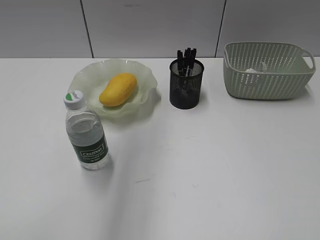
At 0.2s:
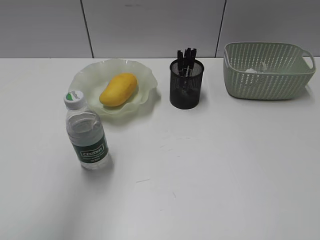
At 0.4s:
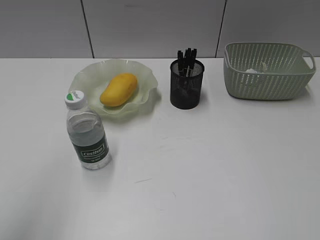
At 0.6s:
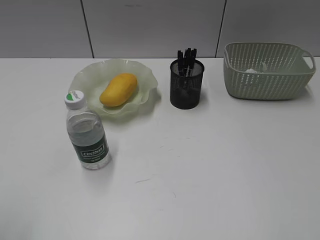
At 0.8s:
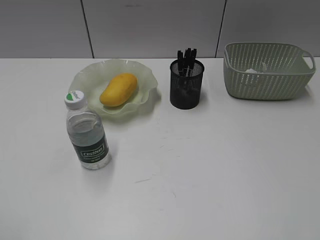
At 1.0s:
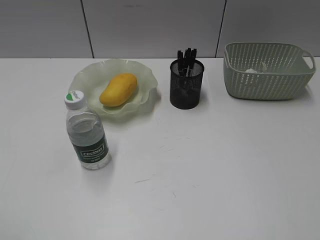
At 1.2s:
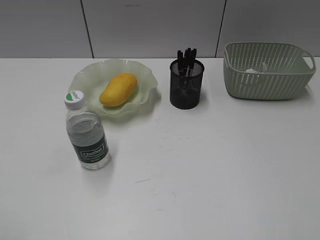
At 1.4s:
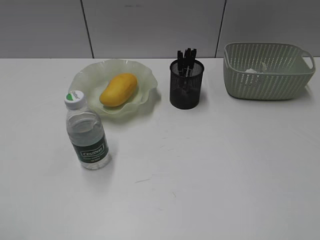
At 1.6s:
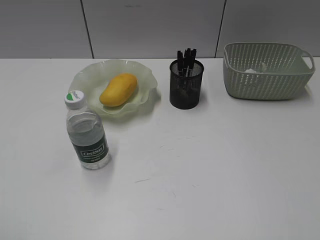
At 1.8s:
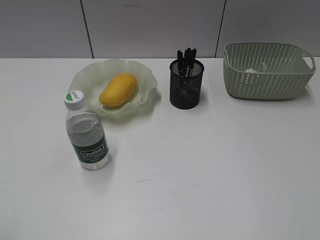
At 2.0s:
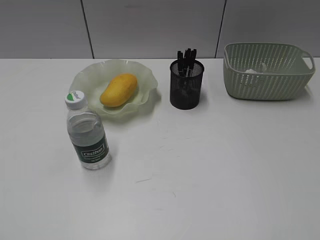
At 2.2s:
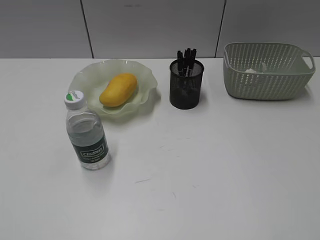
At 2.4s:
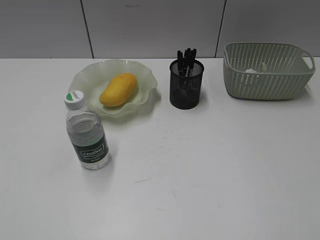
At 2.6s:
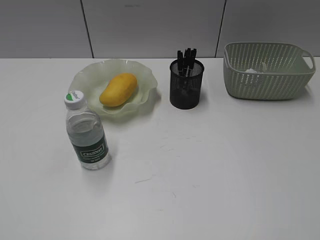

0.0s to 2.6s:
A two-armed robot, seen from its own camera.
0.0s to 1.2s: The left gripper heads backward, to the left and downward, covering some 35 cm. Meanwhile the right gripper opens.

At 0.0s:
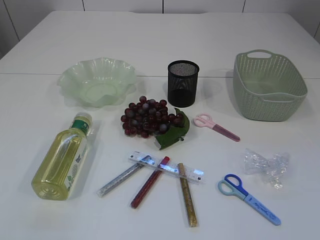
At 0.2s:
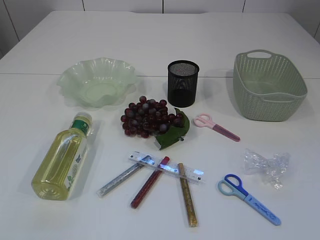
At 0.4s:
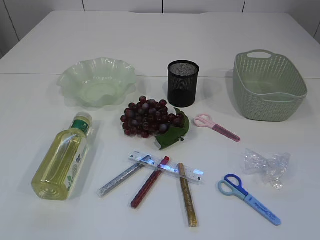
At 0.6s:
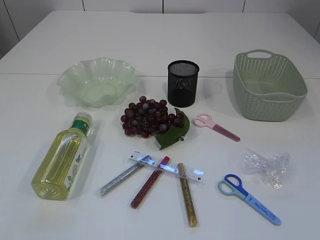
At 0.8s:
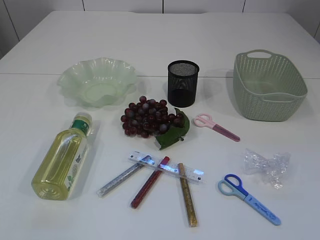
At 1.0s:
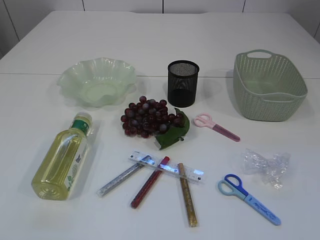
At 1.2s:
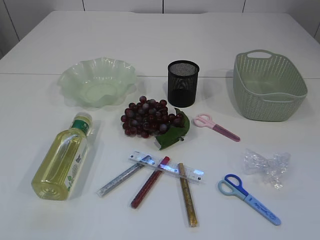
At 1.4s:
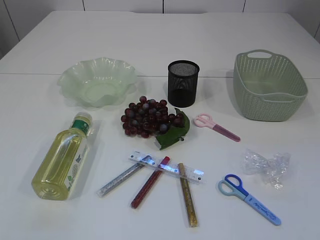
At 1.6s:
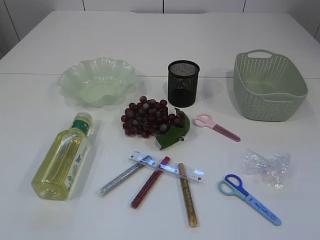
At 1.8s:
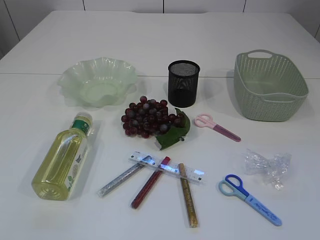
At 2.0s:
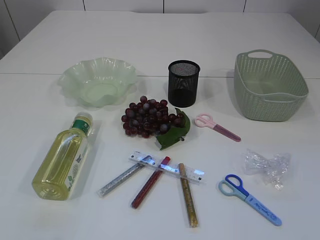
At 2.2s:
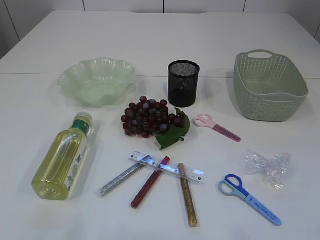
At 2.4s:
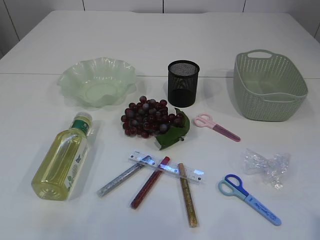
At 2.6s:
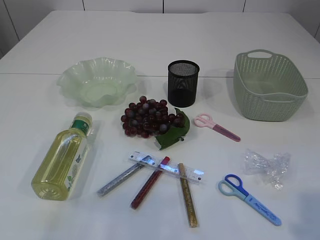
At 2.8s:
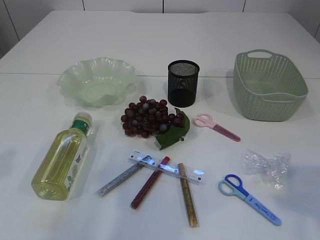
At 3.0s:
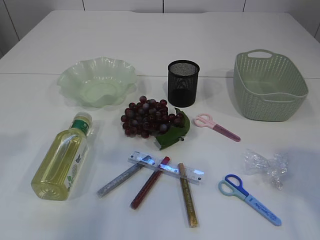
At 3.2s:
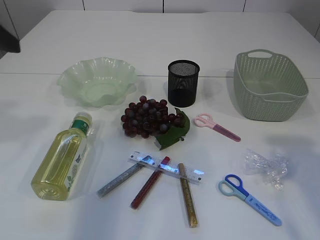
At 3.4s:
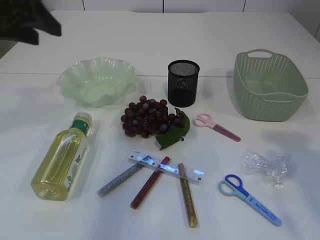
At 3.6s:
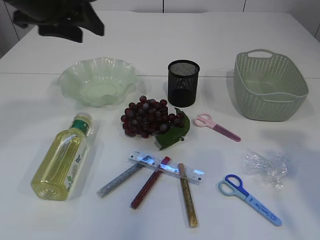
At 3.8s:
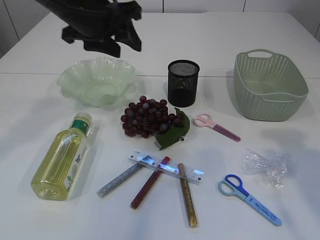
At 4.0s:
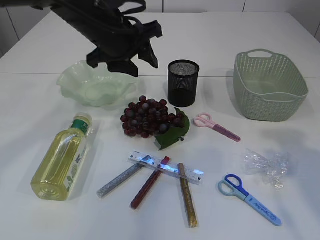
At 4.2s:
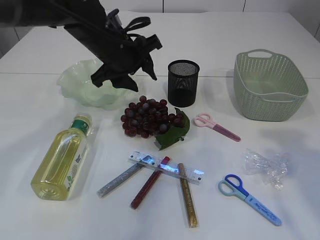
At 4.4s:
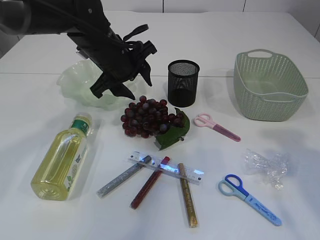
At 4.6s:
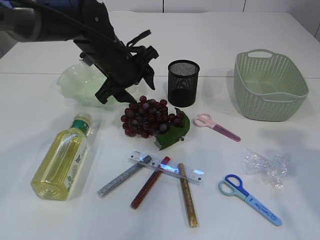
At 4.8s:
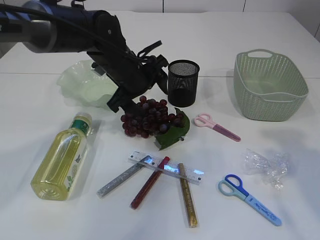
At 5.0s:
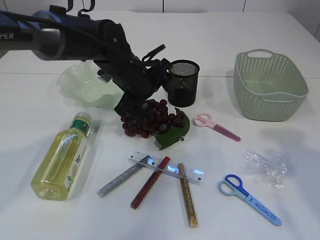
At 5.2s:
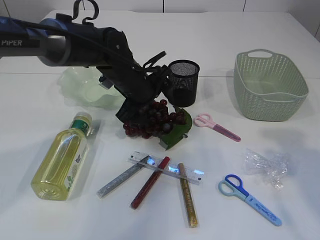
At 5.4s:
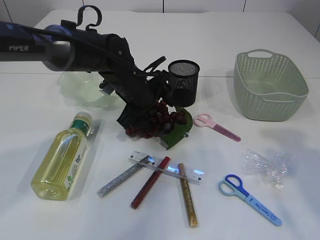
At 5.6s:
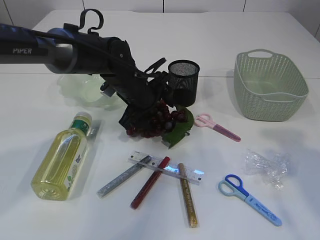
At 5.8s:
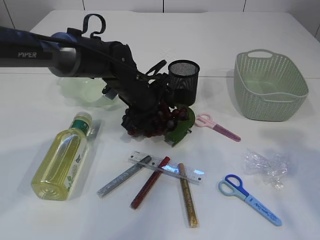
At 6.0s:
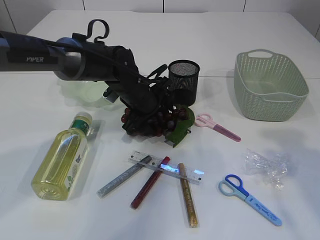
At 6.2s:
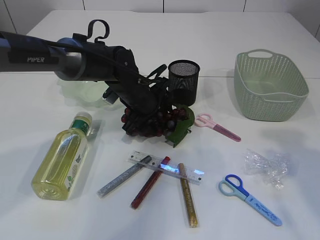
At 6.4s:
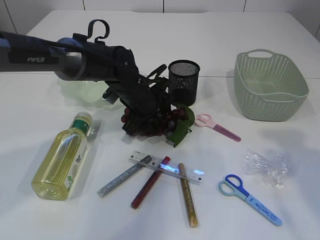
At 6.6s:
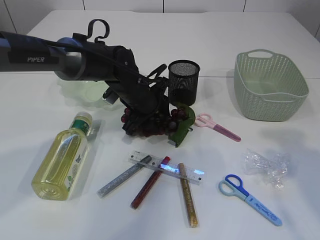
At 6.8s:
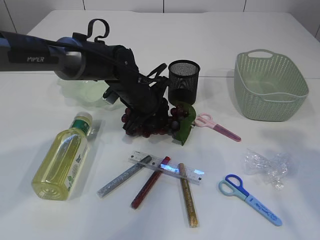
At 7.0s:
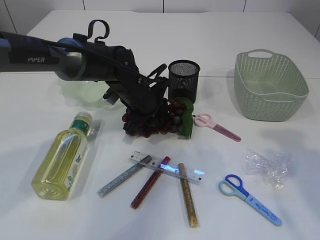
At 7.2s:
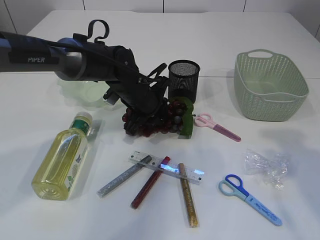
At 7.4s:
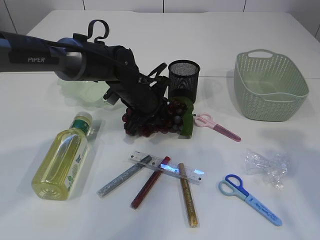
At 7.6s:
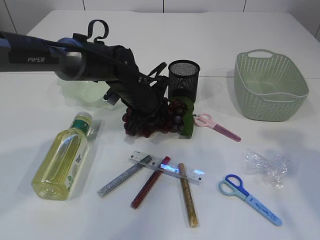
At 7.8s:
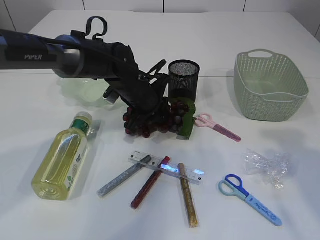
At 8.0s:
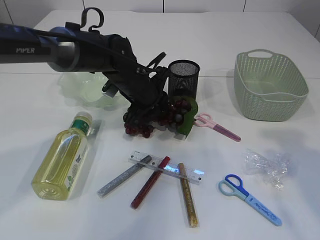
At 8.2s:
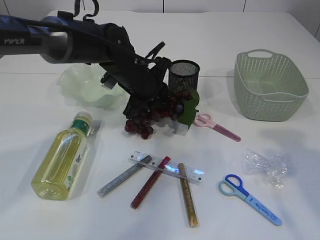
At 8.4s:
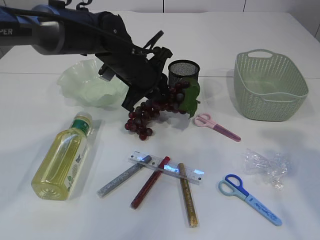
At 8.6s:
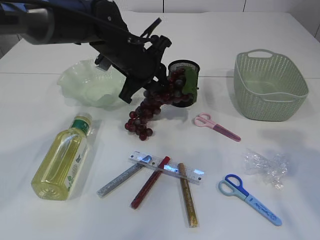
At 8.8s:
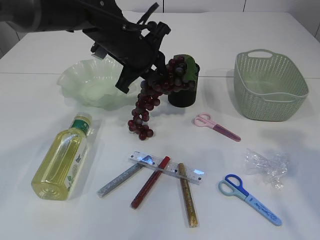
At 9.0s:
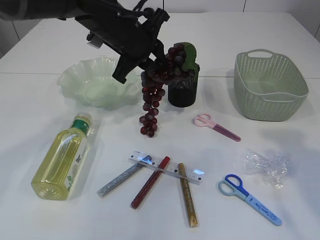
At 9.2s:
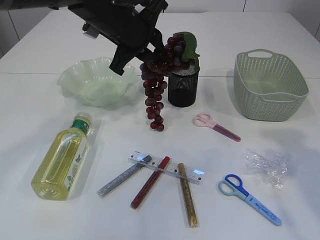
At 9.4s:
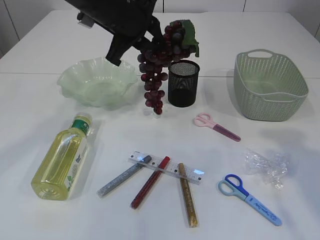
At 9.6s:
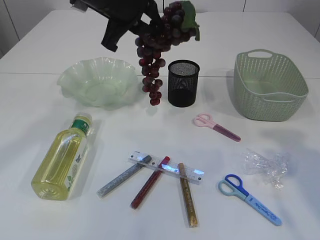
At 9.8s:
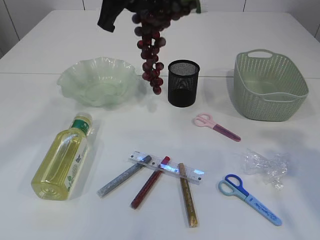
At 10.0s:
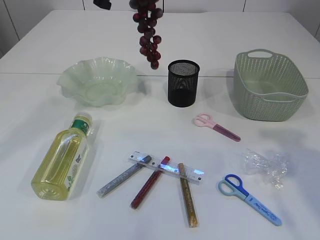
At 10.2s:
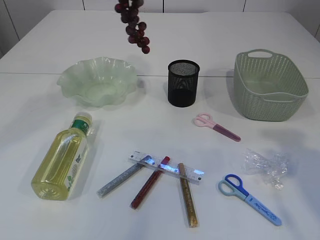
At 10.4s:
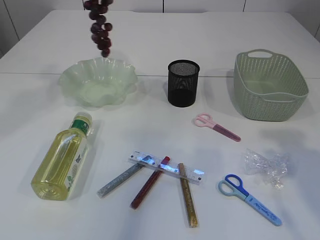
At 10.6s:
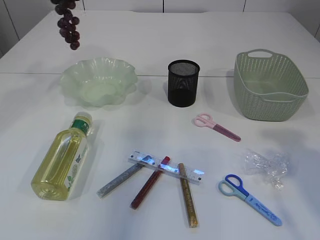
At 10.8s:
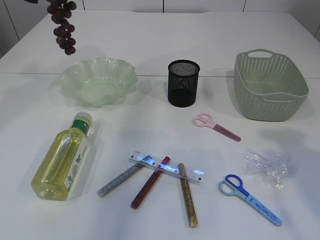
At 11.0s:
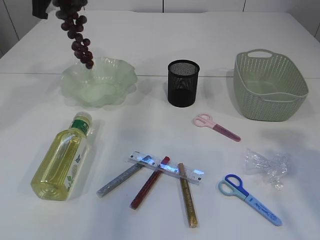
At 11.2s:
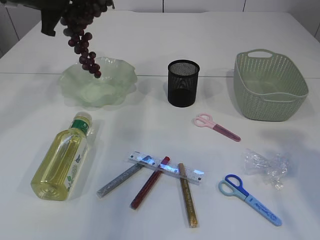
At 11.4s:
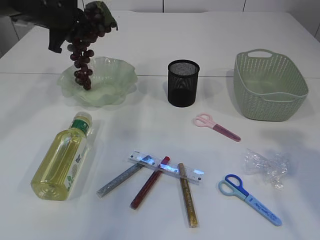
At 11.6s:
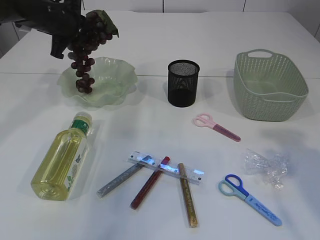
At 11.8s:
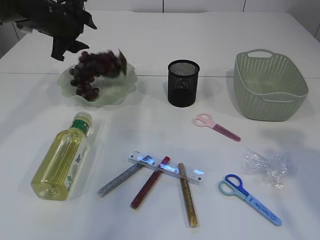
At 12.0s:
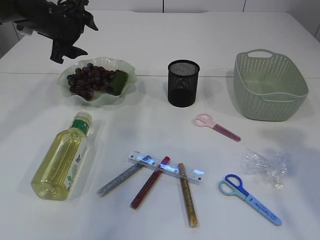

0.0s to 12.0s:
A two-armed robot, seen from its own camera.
Step, 0.0s to 9.4s: Pick up the grapes.
1.6s to 3.0s: The right gripper is displaced forward and upward by roughly 15 cm. The left gripper goes roughly 20 cm forward.
3.0s to 4.4s: The right gripper moves forward, roughly 5 cm. Meanwhile the left gripper is displaced to the right, forward and downward by roughly 30 cm.
4.4s to 6.0s: The left gripper goes roughly 10 cm downward, and opens.
6.0s to 7.6s: The left gripper closes up.
7.6s to 9.0s: The left gripper goes roughly 15 cm upward.
9.0s to 10.4s: The left gripper travels upward and to the left by some 15 cm.
10.4s to 12.0s: The left gripper moves downward and forward, approximately 15 cm, and opens up.

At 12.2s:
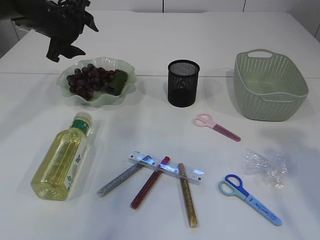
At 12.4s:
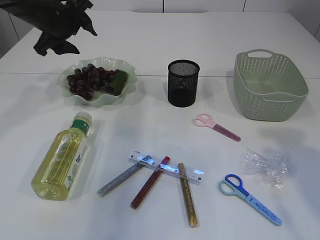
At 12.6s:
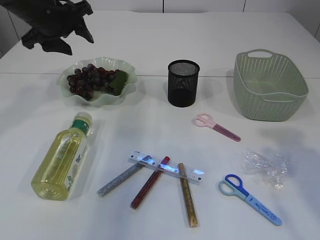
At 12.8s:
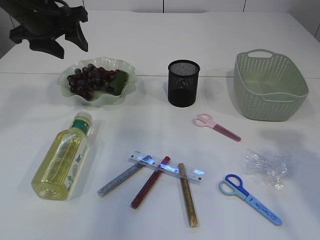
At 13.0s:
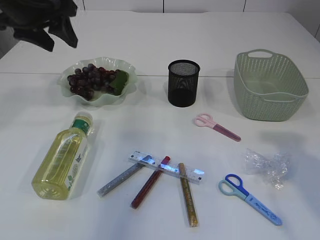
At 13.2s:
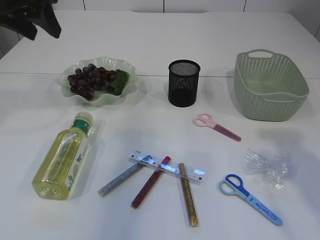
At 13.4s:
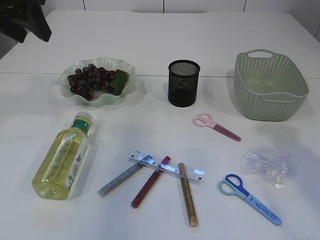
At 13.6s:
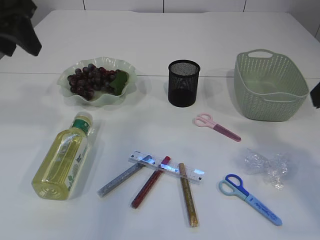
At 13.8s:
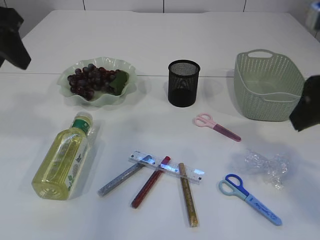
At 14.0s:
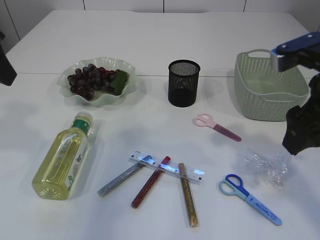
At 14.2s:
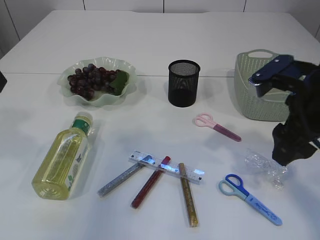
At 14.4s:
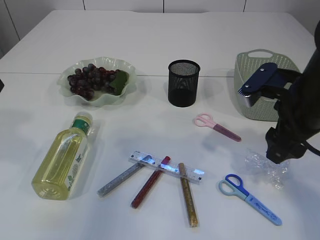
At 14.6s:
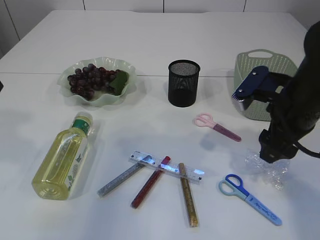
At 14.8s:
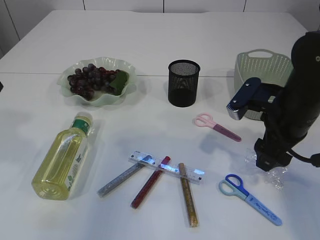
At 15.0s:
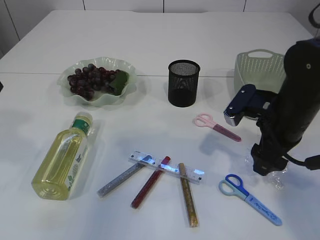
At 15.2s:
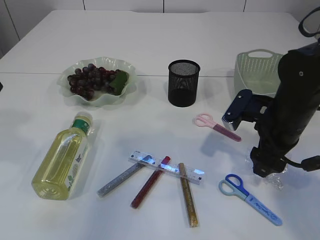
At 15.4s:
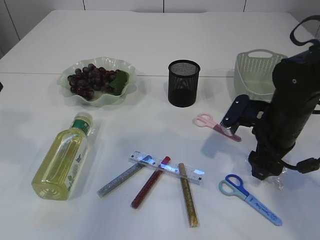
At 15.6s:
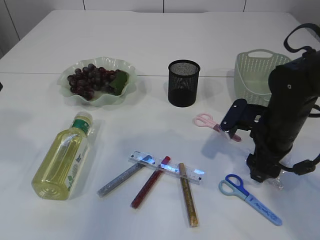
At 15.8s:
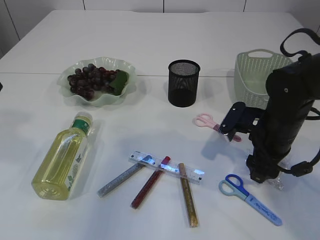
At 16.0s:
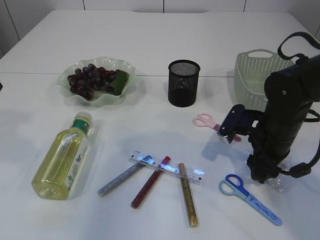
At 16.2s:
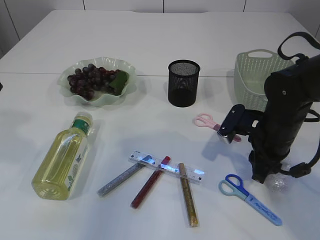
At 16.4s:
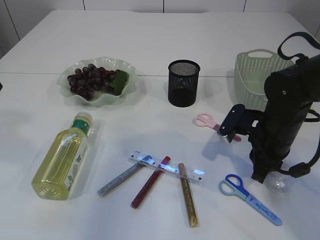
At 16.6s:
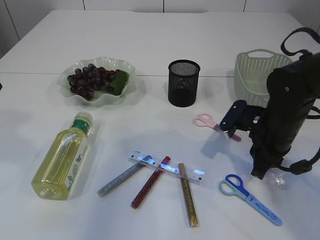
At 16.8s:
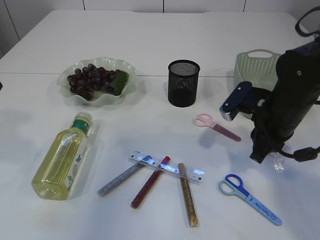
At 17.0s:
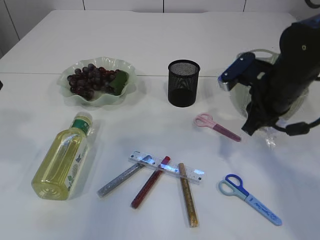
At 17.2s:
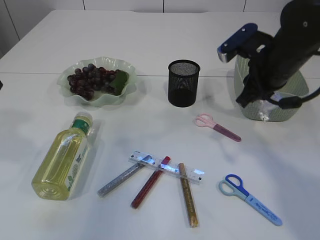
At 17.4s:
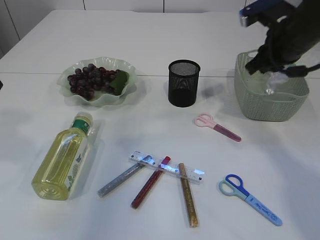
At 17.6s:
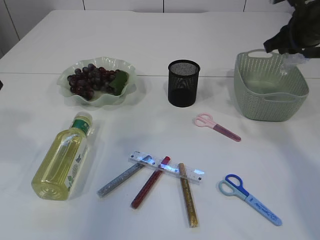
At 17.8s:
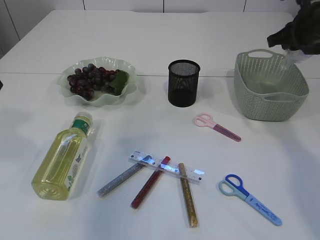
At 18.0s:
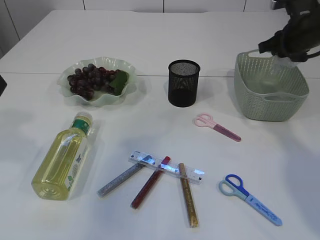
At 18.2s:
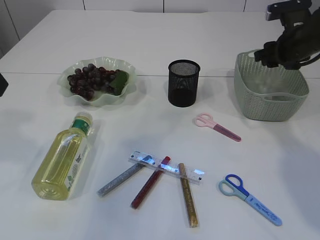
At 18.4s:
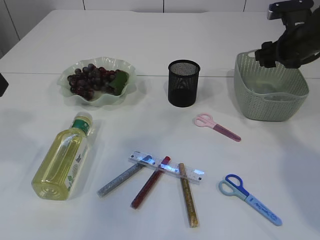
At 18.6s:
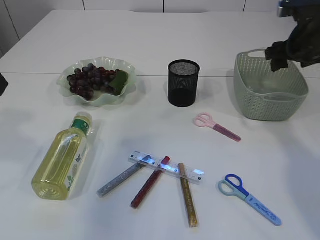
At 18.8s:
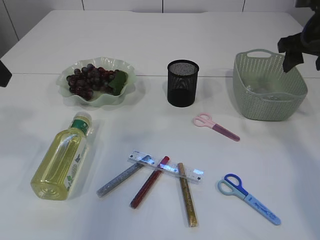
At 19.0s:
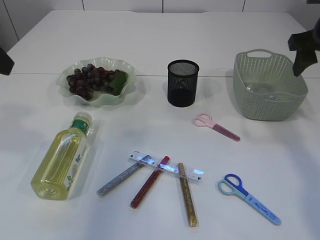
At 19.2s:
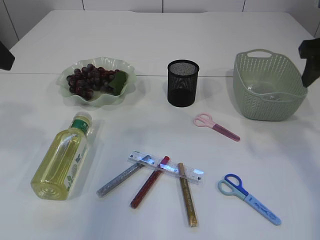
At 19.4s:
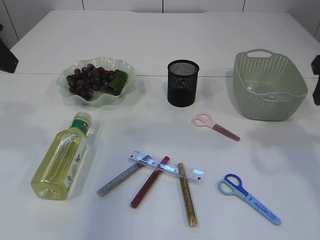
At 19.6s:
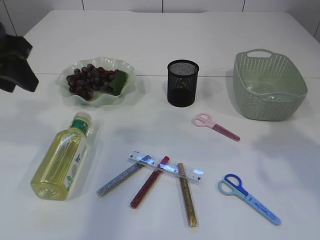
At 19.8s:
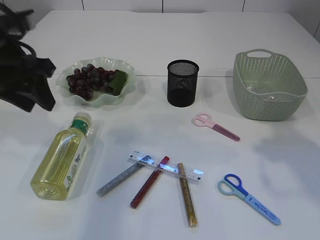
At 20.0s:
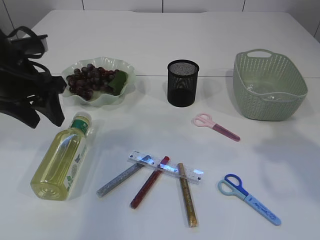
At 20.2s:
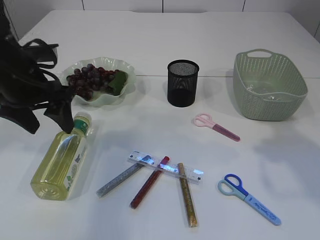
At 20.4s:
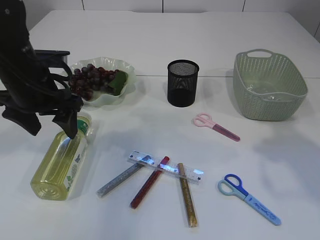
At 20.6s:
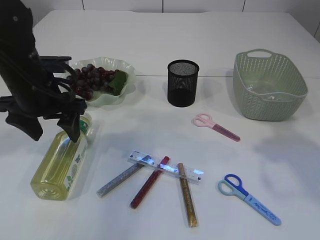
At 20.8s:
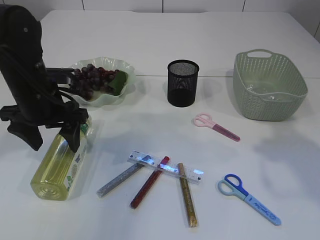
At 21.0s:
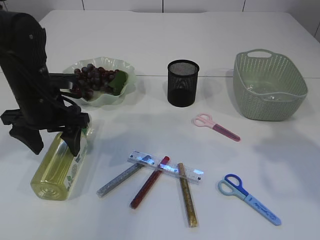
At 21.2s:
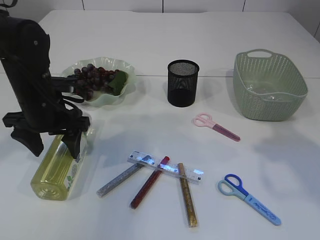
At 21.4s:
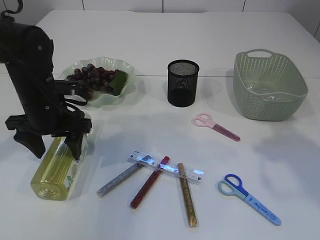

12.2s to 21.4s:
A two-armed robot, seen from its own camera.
Step, 12.4s to 16.8s: Pick up the plastic.
Step, 17.0s to 18.8s: Place the plastic in the basket.
12.2s to 13.8s: The left gripper heads backward and upward, covering roughly 20 cm. The right gripper moves to the left, approximately 5 cm.
13.8s to 15.2s: The left gripper heads backward, covering roughly 5 cm; the right gripper travels downward and forward by roughly 20 cm.
15.2s to 16.8s: The right gripper closes.
16.8s to 18.4s: The right gripper moves forward, to the right and upward, approximately 15 cm, and opens its fingers.
18.4s to 19.8s: The right gripper shifts roughly 20 cm backward and upward, while the left gripper heads forward and downward, covering roughly 10 cm.
19.8s to 21.4s: The left gripper is displaced downward by approximately 10 cm, and opens.
